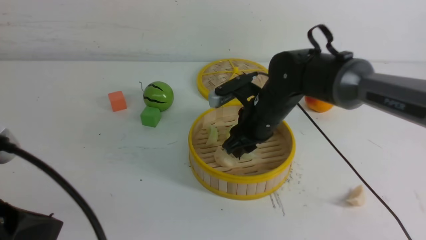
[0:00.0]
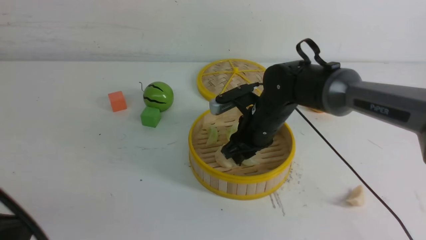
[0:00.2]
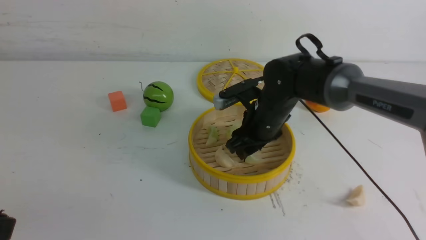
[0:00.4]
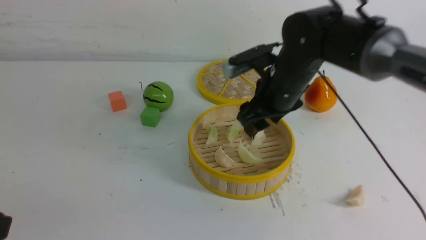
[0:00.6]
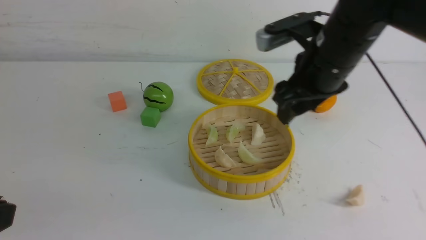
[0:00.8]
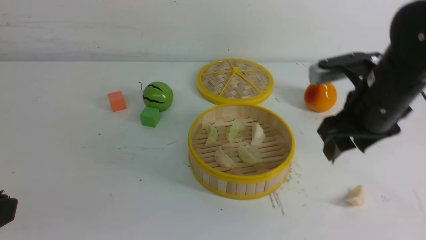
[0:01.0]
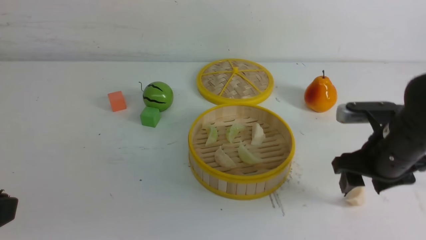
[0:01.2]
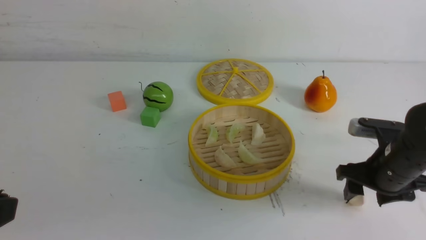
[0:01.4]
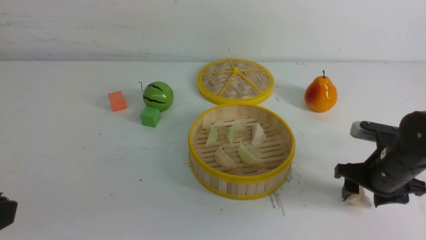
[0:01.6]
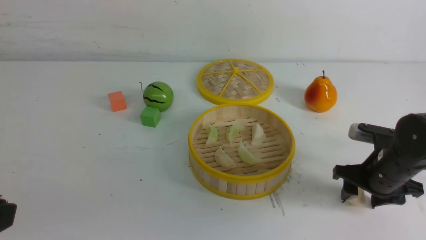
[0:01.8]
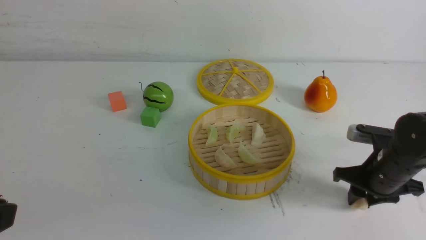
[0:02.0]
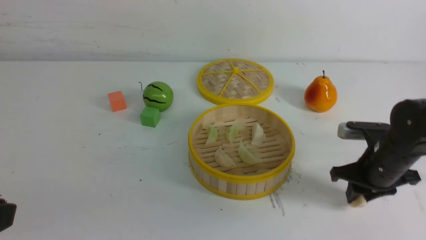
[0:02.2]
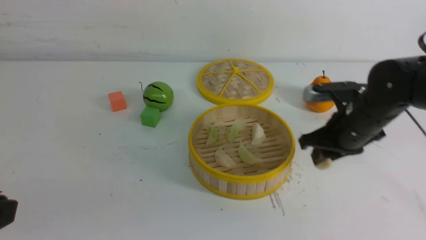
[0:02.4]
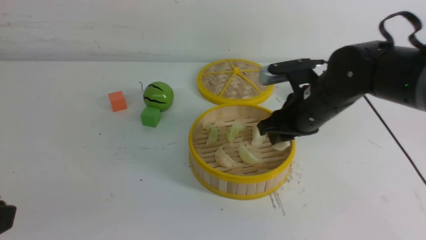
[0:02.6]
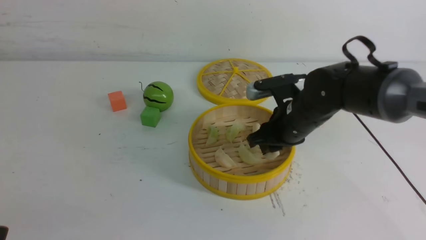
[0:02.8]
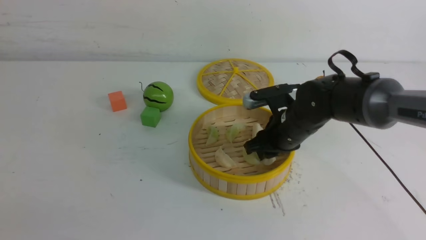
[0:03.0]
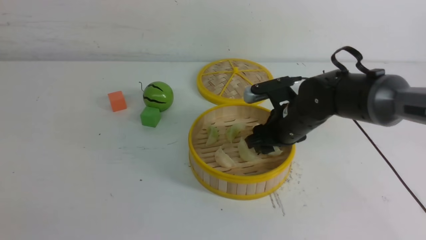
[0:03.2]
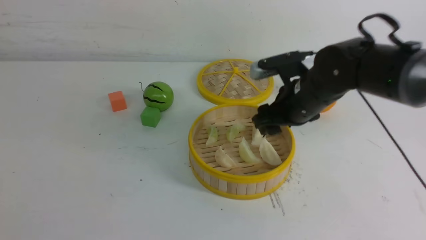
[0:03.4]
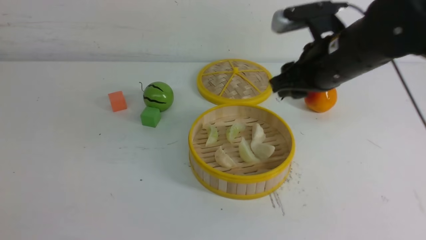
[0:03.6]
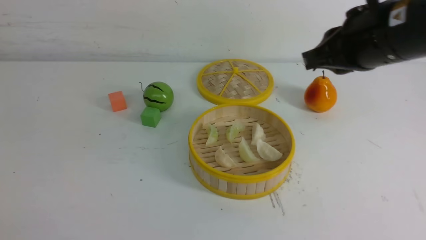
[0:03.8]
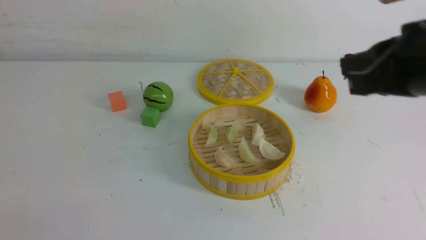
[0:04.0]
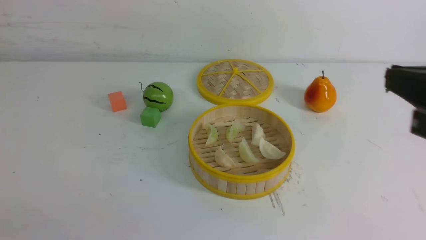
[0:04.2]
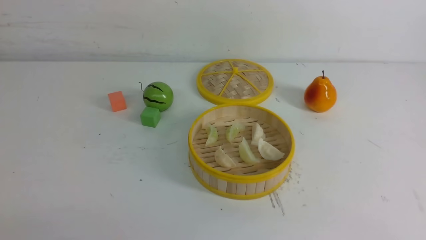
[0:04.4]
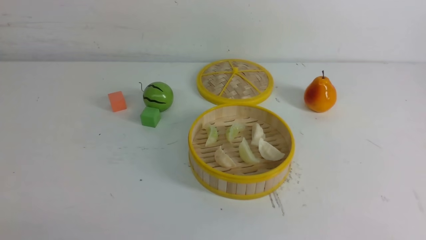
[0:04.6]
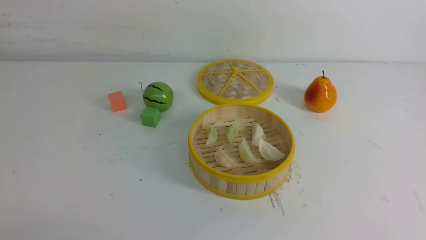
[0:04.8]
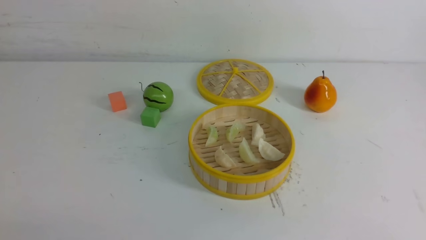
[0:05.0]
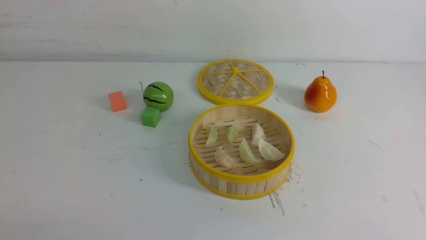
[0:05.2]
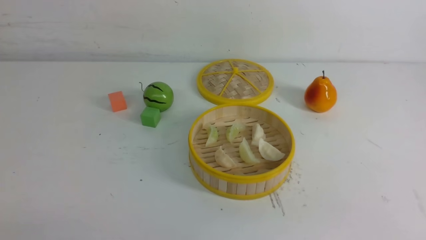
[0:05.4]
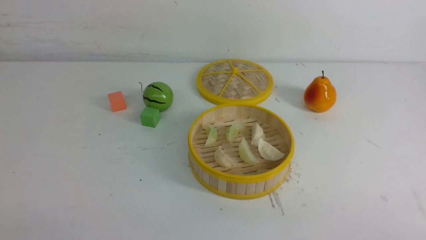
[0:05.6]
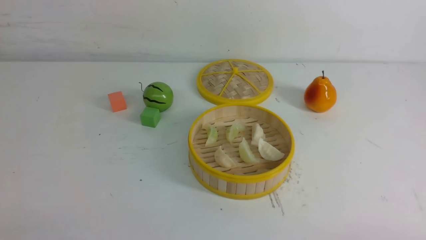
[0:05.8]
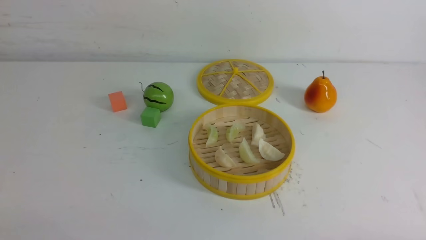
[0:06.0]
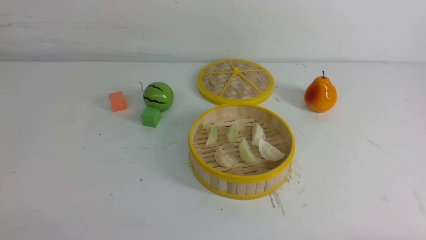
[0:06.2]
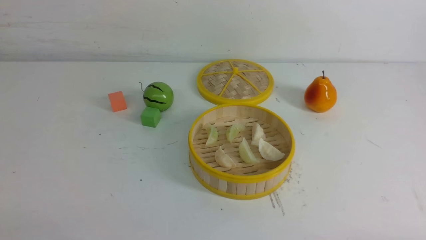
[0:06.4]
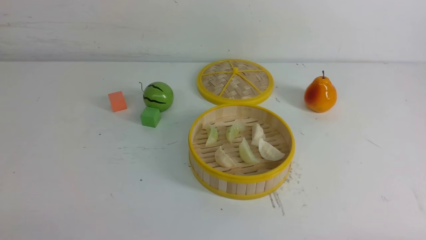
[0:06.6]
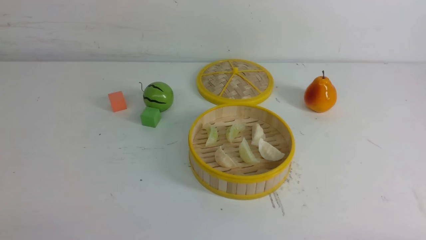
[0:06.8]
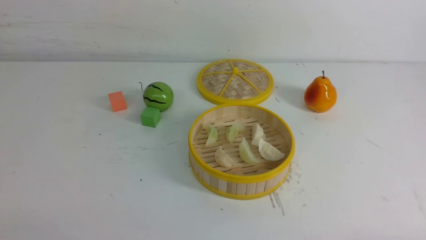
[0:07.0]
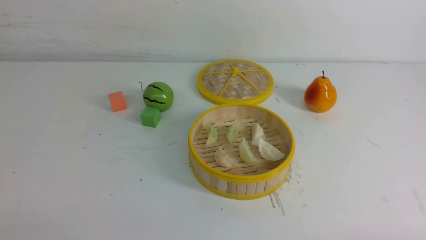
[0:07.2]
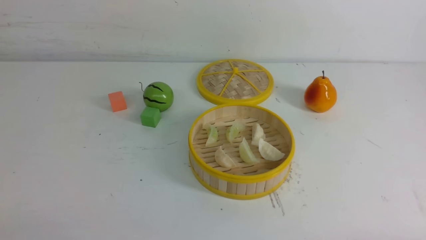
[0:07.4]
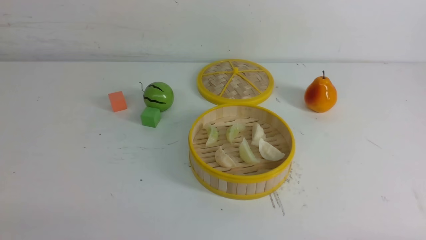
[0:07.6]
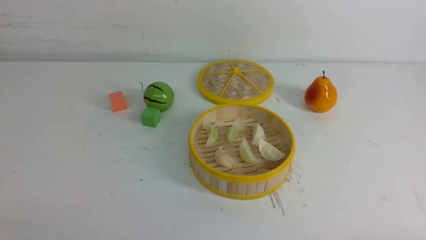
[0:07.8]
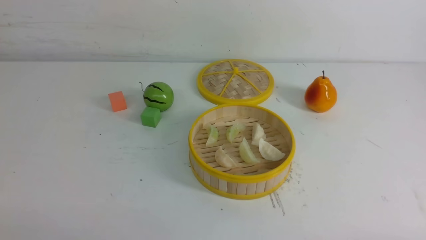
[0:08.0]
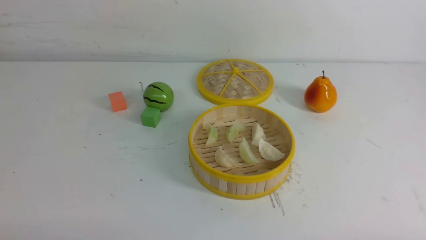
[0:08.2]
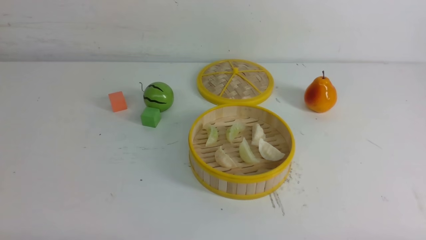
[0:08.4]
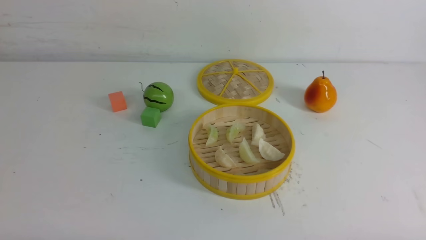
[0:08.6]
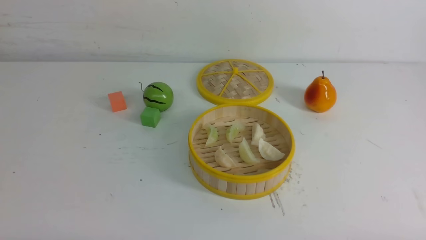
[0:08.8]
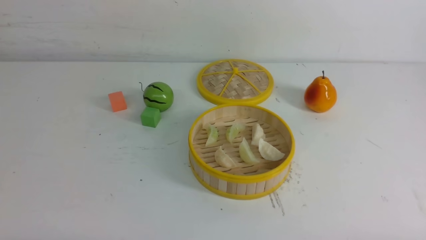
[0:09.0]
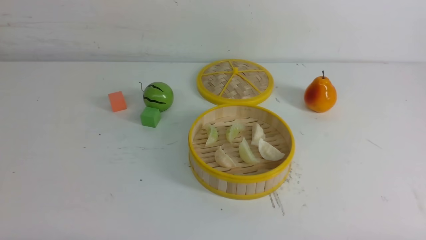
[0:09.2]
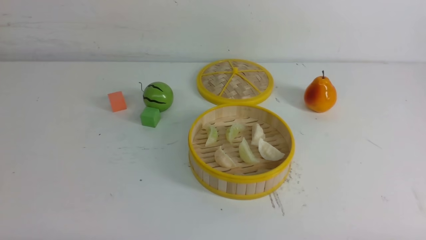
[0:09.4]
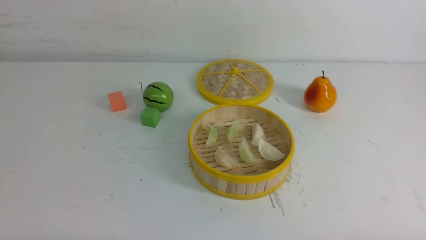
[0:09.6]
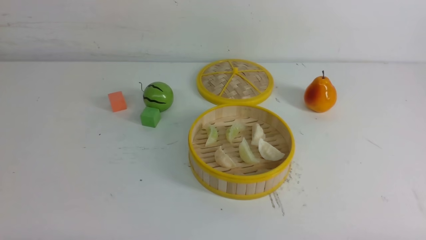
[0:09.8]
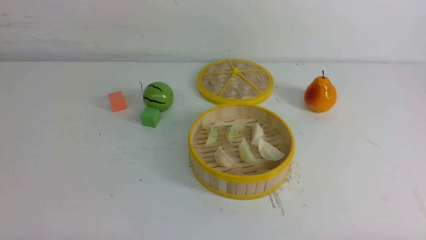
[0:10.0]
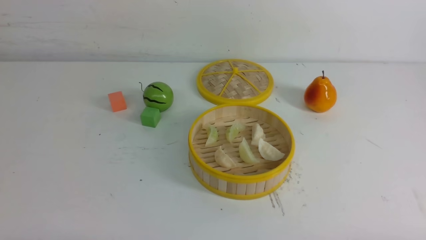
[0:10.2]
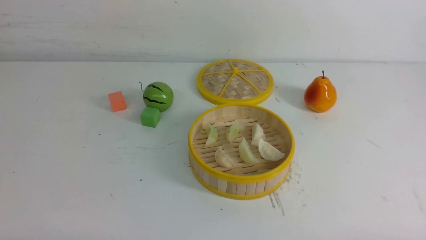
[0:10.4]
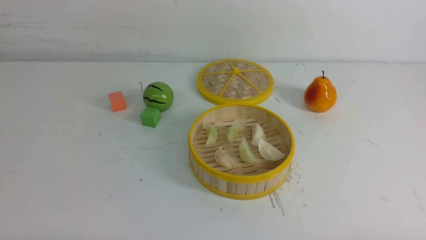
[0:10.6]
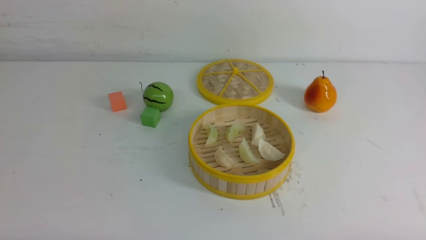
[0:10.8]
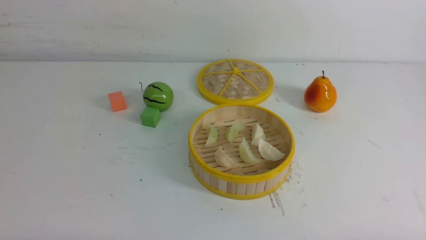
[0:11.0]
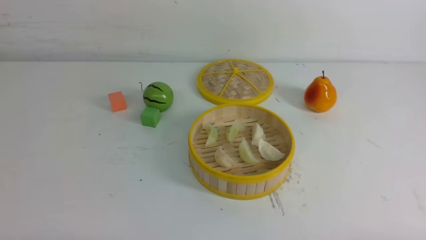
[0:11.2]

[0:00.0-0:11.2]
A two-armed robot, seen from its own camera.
Task of the whole recording: put the dumplings into the steamer on the white table.
Step, 0:00.6 to 0:02.2: use the right arm to grab a dumpling.
Step, 0:02.4 to 0:03.2: use the right arm to put the dumpling into the steamer.
0:00.0 to 0:01.6: The right gripper goes some 20 cm to the right and backward, and opens up.
0:01.6 to 0:03.2: The right gripper shifts roughly 15 cm to the left and forward.
0:03.2 to 0:04.8: The left gripper is displaced downward by approximately 10 cm. The right gripper is displaced backward, upward and to the right by roughly 35 cm, and closes.
0:09.6 to 0:11.2: Neither gripper changes place.
